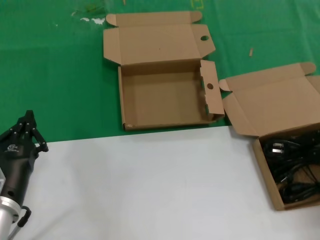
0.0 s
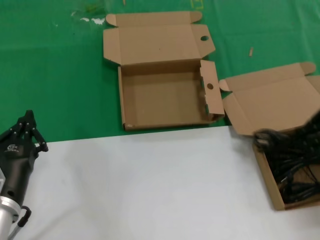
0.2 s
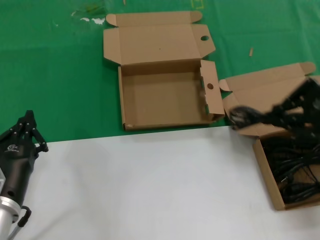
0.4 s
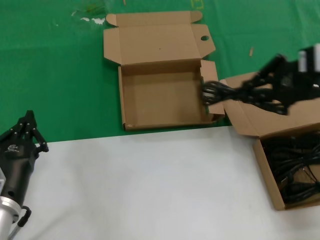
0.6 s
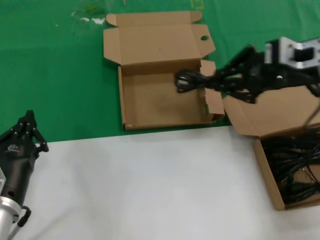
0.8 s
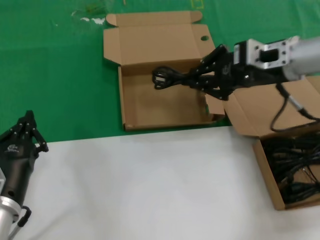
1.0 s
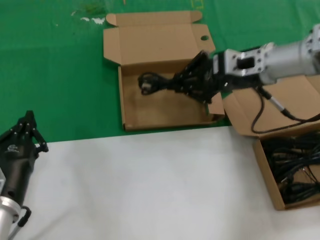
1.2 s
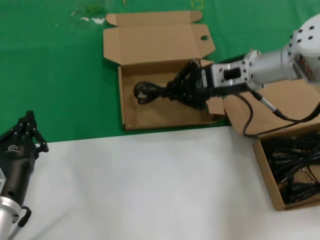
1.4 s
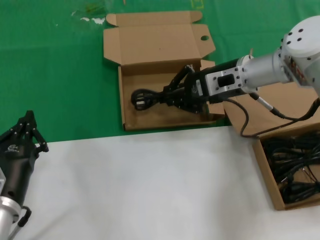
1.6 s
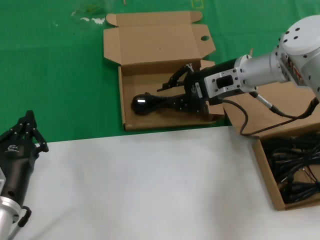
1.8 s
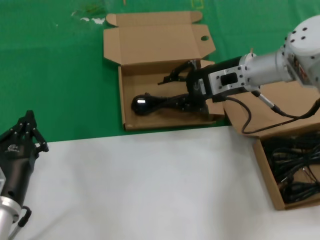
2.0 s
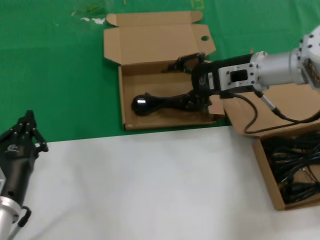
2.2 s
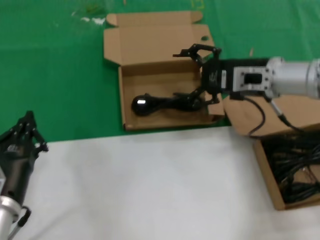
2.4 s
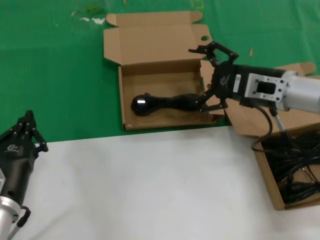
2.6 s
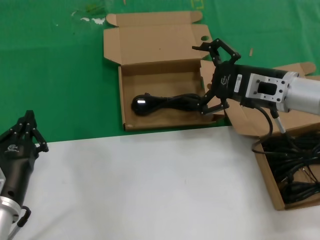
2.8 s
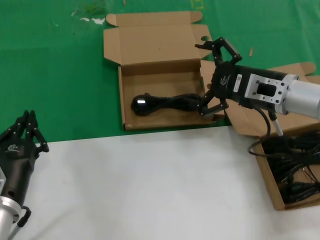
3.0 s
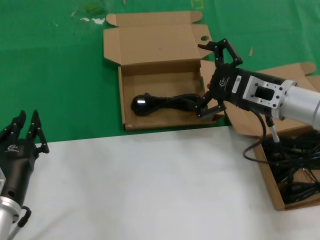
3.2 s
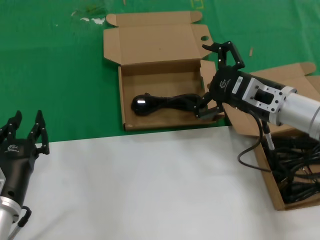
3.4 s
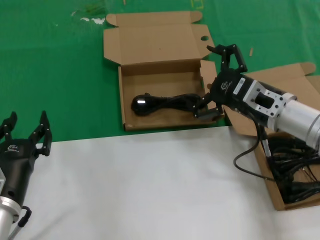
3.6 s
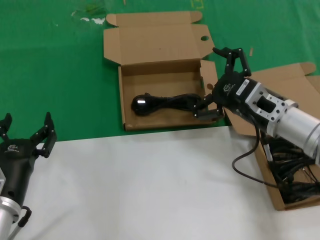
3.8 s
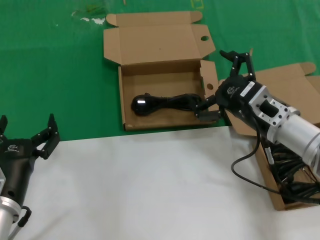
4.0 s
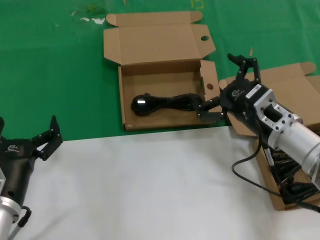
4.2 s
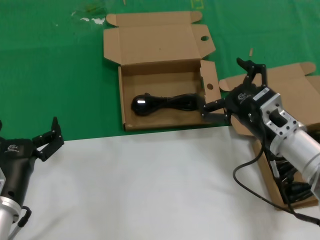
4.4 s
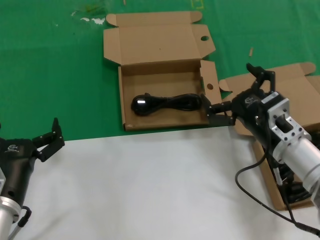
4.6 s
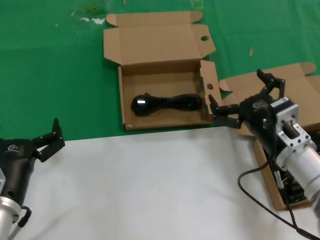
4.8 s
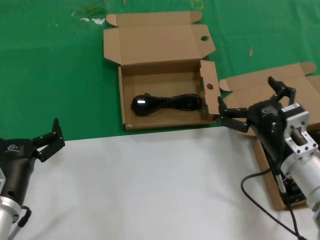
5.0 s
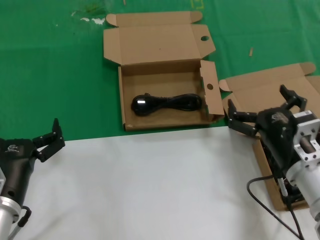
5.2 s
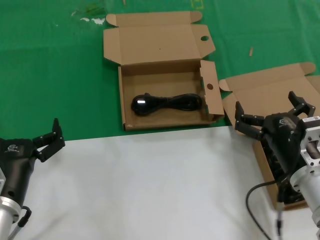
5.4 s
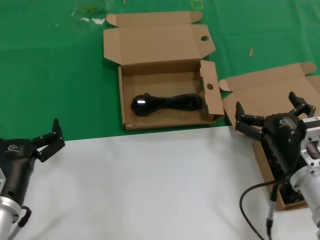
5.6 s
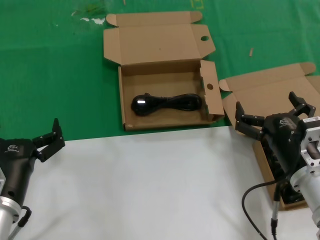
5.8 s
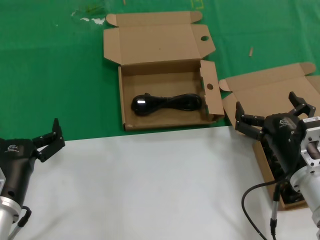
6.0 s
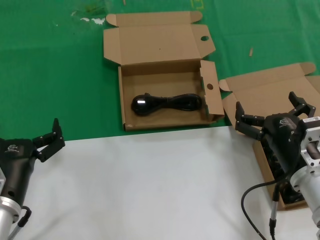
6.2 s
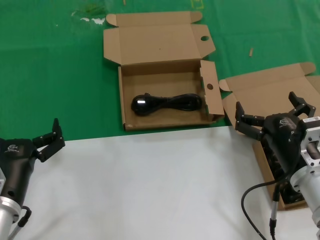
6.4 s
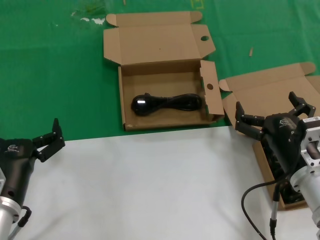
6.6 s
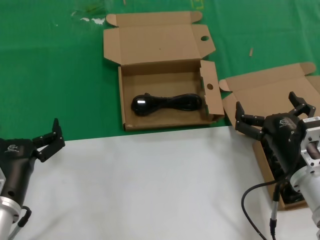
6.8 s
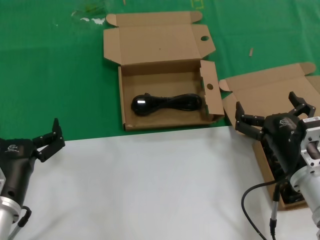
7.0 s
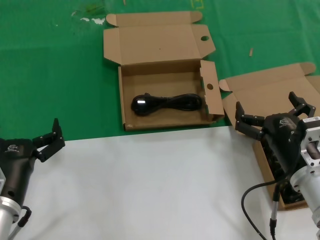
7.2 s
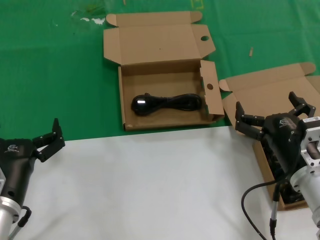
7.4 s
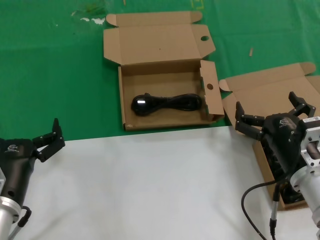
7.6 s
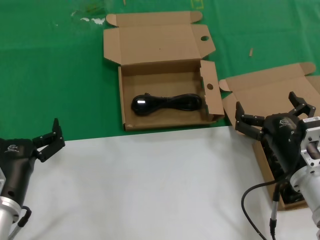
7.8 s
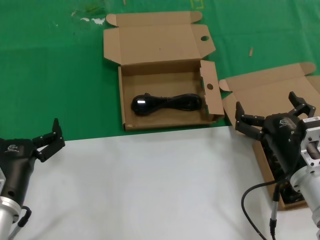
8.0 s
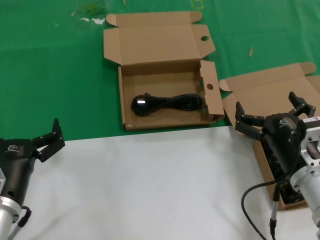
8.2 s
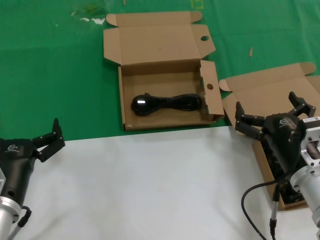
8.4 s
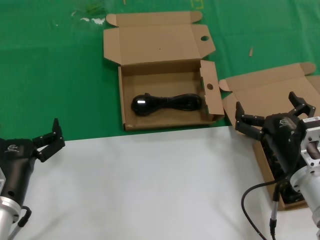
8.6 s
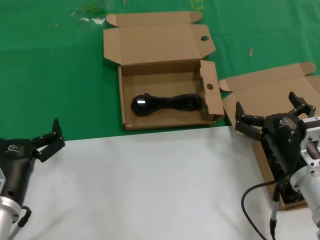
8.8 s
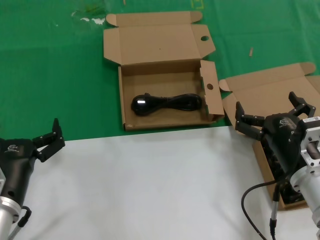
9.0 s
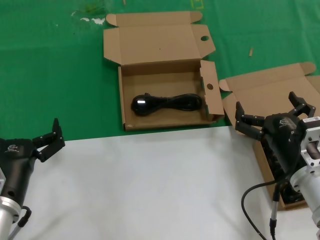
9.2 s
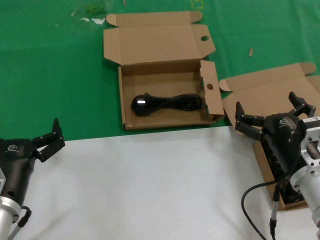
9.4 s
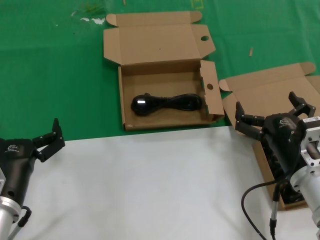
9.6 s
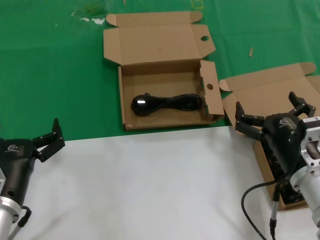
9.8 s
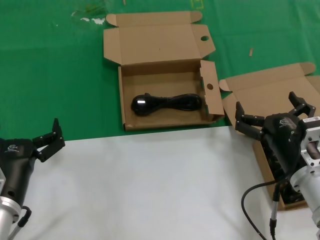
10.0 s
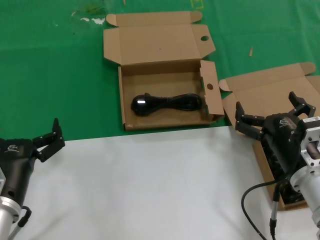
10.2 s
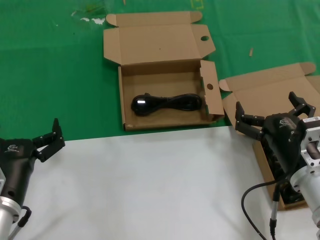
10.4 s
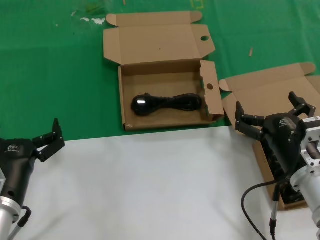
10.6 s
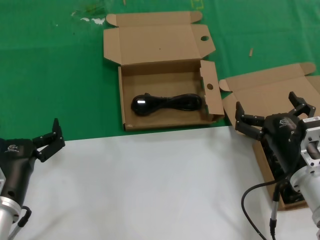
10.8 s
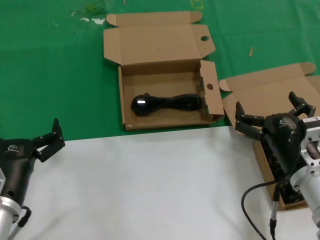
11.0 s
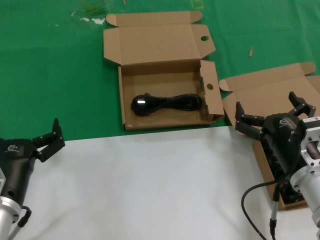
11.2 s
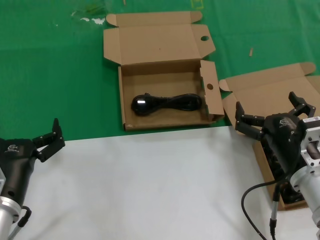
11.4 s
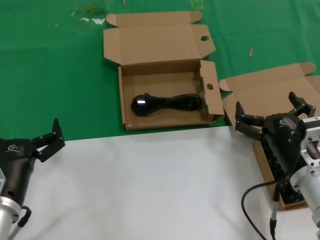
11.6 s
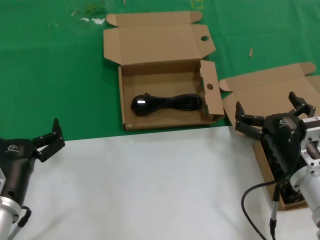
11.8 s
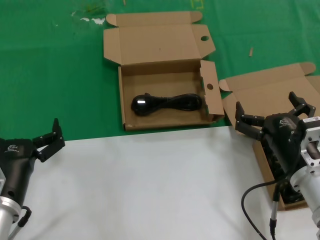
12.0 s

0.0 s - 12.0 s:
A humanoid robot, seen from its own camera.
Task of the whole recording: take the parts from the box containing them and put them into an empty box.
Step, 0.0 s - 2.2 s: Place the data cable in the another box.
0.0 s - 1.6 s: The right hand heads to the left and forward, covering roughly 25 cm.
1.6 s - 3.0 s: The right hand goes roughly 10 cm backward.
3.0 s - 4.4 s: The right hand is displaced downward and backward by some 10 cm.
4.4 s - 6.0 s: The right hand moves backward, approximately 5 cm.
6.0 s - 12.0 s: Neither hand changes place.

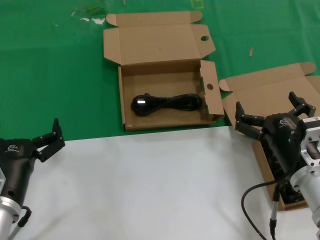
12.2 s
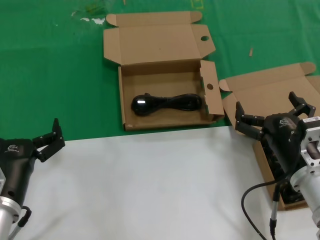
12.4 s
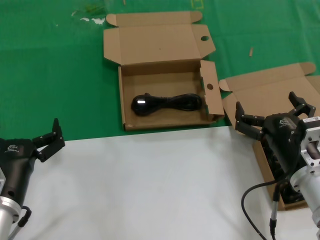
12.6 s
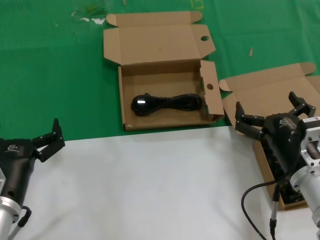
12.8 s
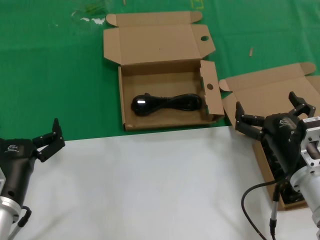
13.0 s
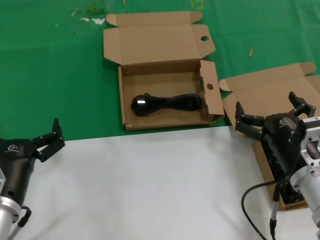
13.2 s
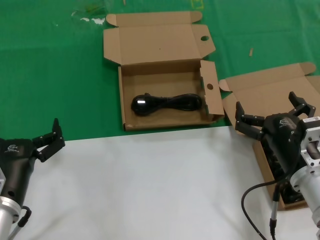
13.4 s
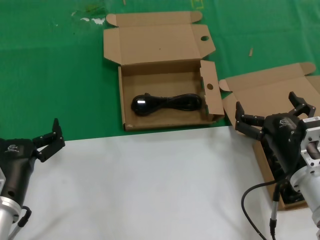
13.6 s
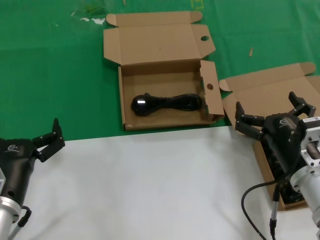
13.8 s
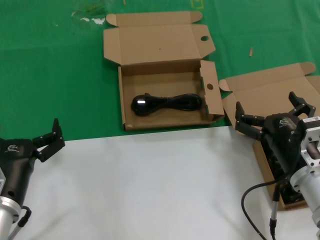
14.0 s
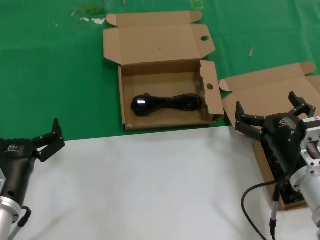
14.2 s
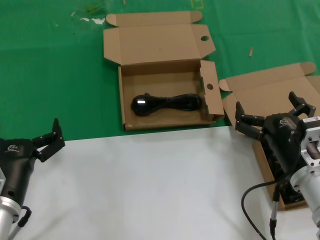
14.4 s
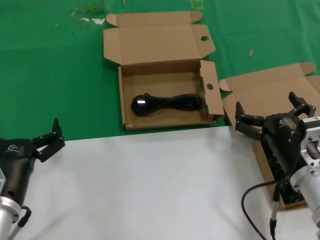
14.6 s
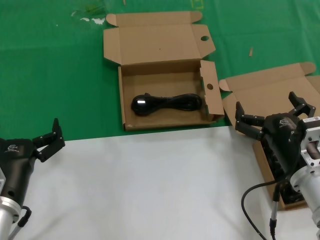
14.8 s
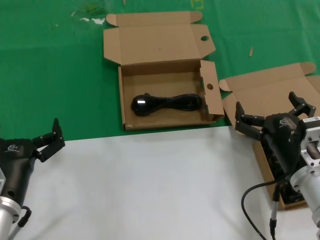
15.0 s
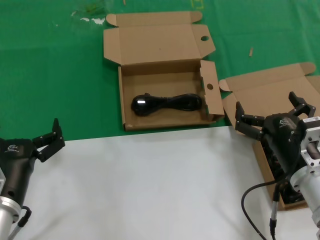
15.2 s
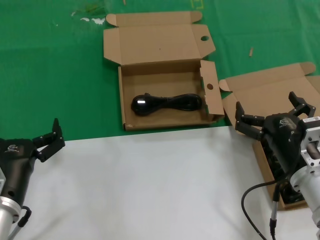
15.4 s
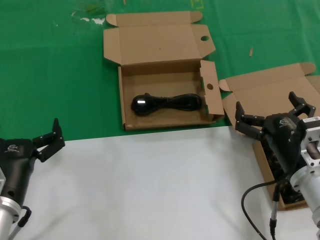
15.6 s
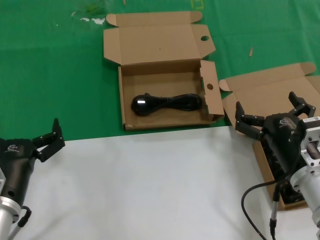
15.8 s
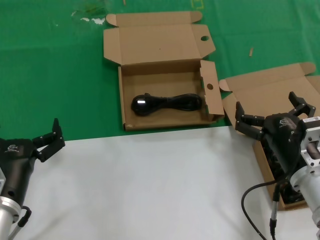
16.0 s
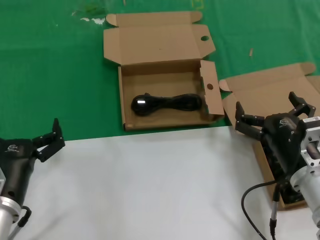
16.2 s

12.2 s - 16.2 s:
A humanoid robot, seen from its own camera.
Task of the whole recording: take the parts from the box containing them and put them into an empty box.
12.2 s - 16.2 s: Both hands stay put.

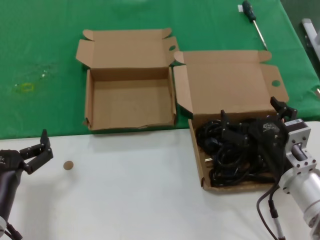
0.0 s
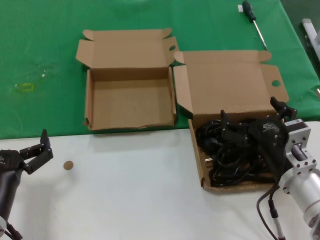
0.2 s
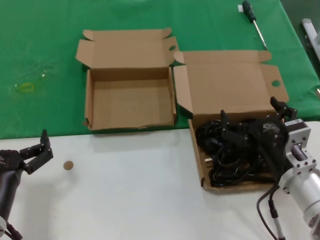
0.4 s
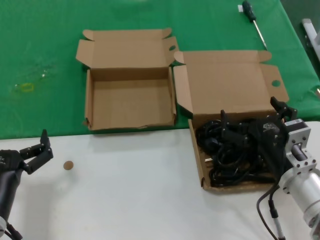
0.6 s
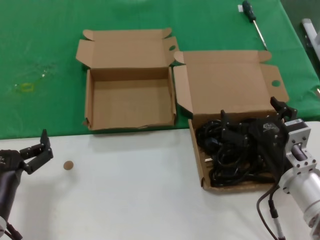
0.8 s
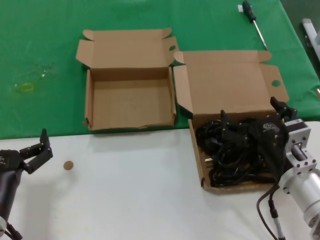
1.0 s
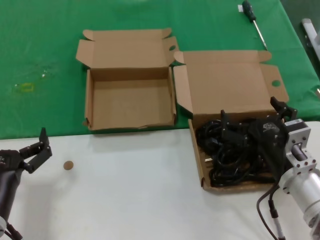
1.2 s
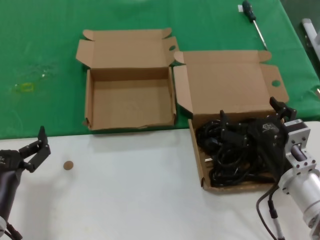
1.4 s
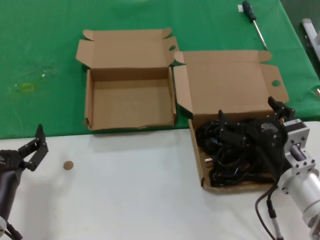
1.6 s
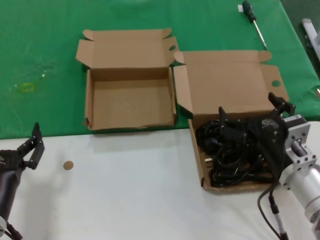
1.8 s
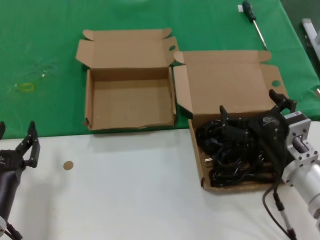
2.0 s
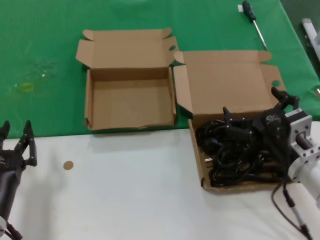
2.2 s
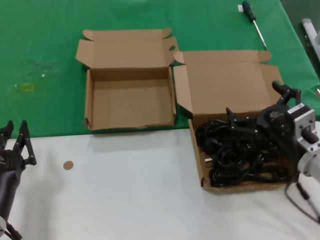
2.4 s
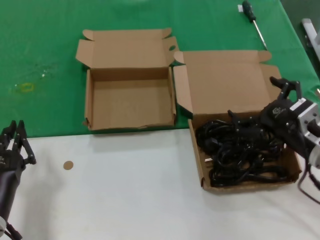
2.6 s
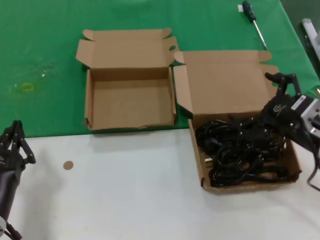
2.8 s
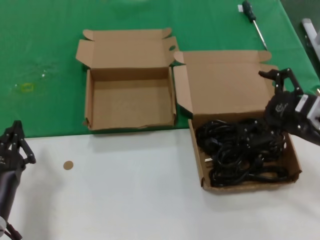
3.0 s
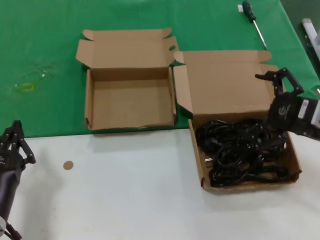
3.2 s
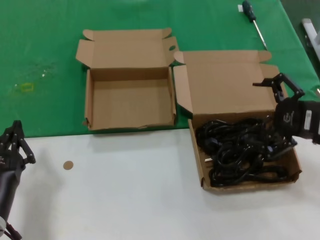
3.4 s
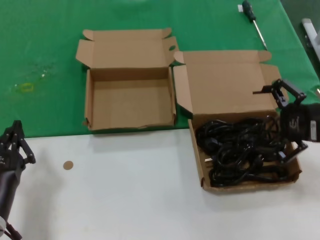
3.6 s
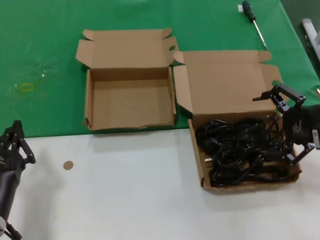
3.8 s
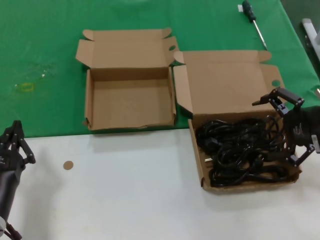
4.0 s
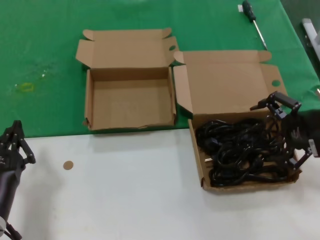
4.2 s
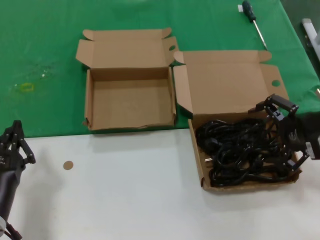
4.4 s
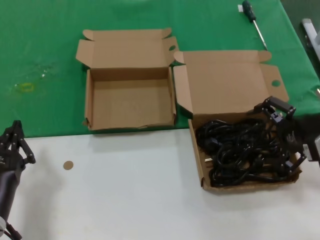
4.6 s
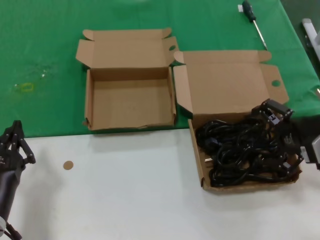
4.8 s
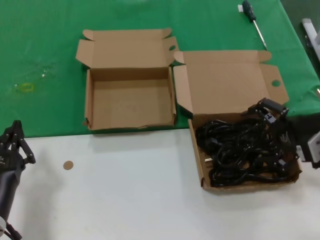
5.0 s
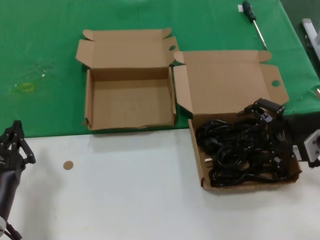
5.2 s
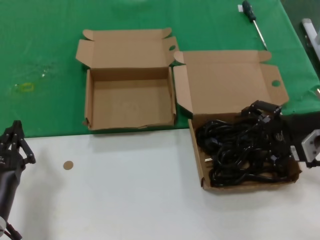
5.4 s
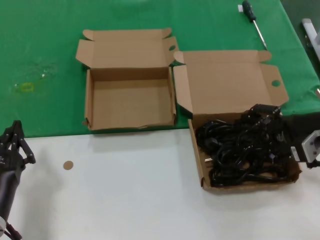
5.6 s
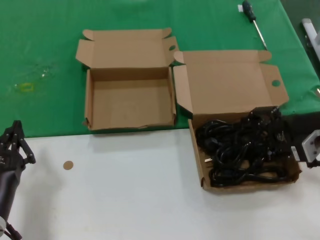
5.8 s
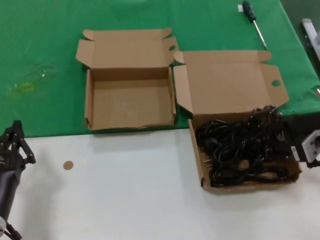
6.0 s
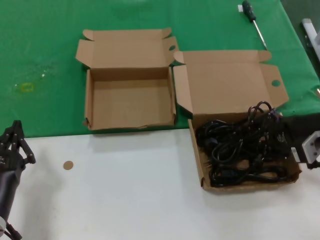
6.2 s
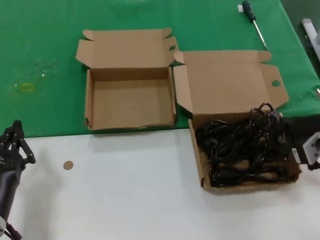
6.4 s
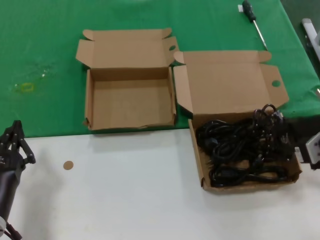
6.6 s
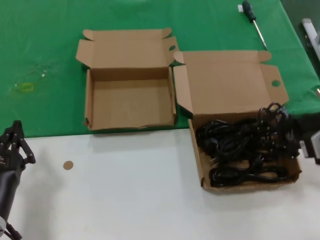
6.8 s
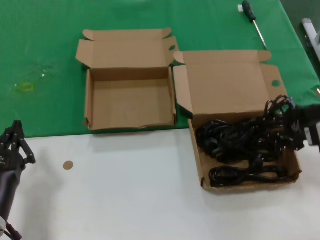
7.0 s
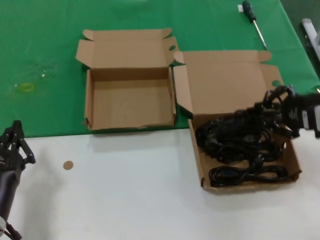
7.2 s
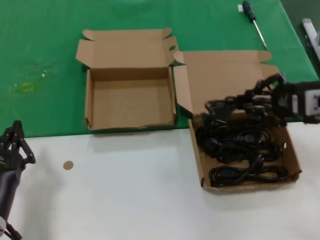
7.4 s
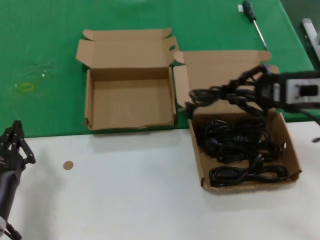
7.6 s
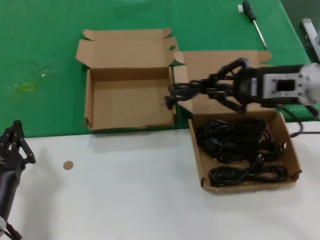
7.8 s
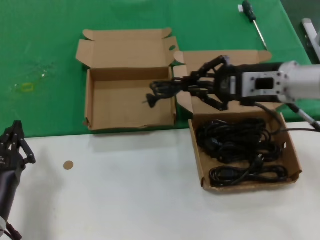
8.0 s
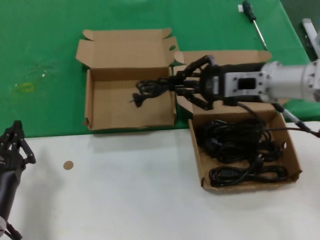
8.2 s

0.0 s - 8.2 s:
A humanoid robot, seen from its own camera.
Task of the whole recording: take the parts from the box containing them and put them into an empty box.
Step, 0.0 s - 6.0 s: Grasp the data cable.
0.0 s - 1.6 s: Neither hand changes place.
1.6 s - 3.2 s: The right hand shifts roughly 15 cm upward and to the right.
5.0 s - 6.6 s: The hands move only a little.
6.6 s - 8.2 s: The right hand is displaced to the left, forward and upward by roughly 15 cm.
